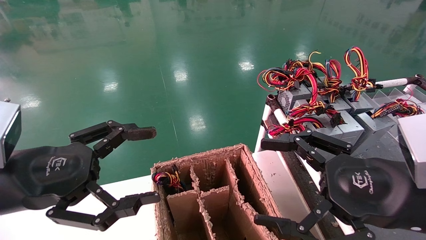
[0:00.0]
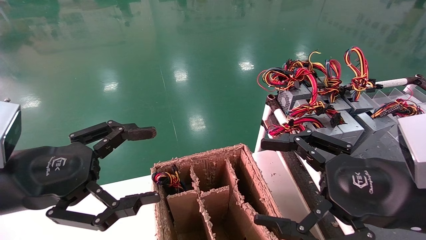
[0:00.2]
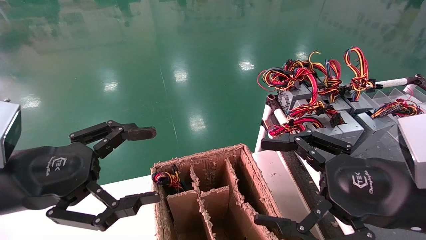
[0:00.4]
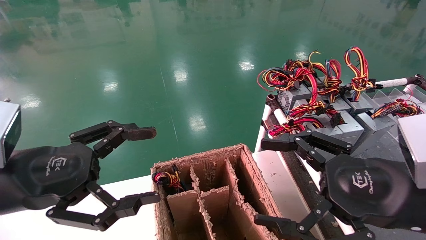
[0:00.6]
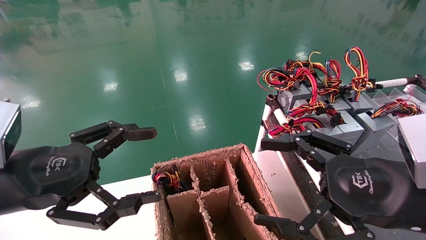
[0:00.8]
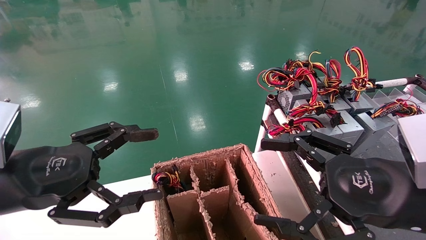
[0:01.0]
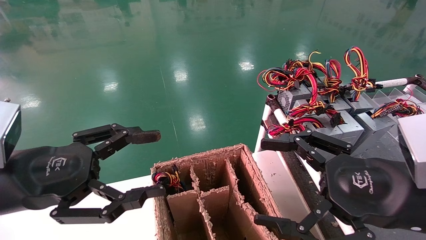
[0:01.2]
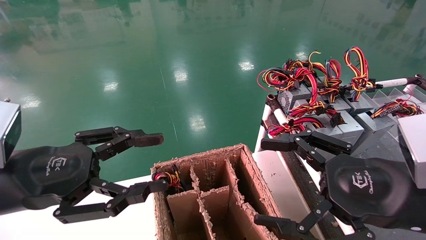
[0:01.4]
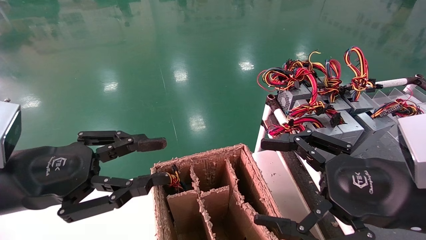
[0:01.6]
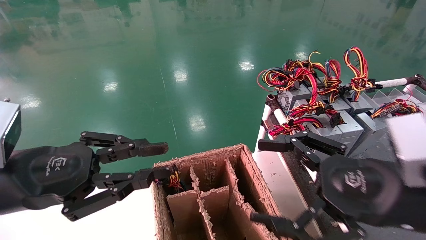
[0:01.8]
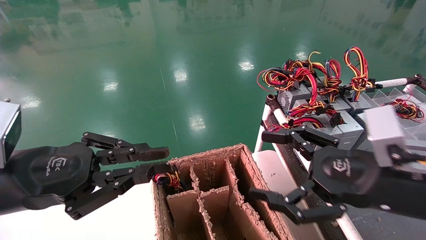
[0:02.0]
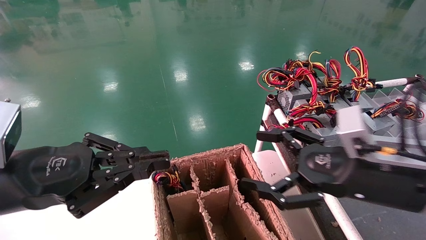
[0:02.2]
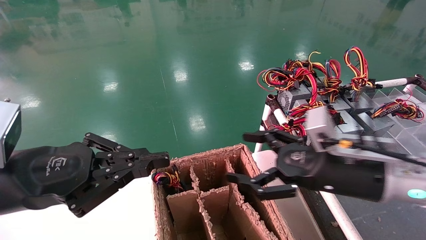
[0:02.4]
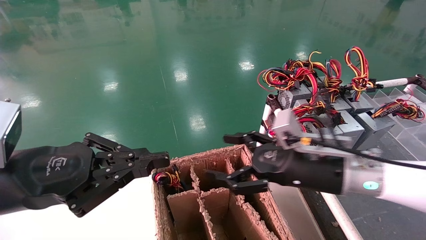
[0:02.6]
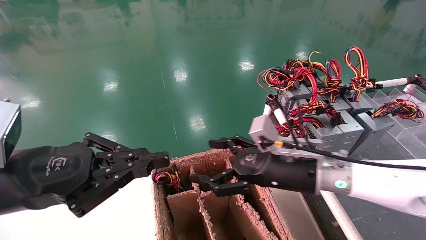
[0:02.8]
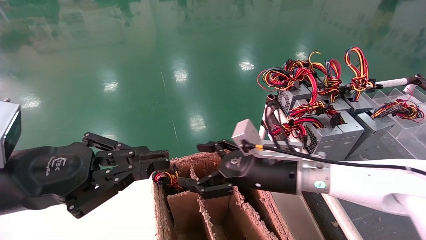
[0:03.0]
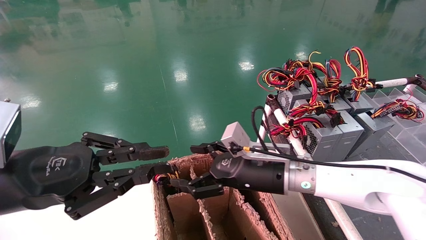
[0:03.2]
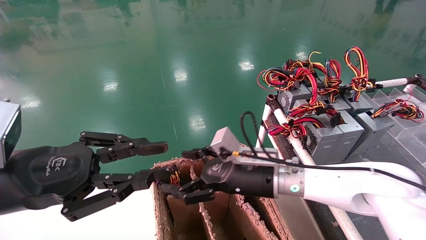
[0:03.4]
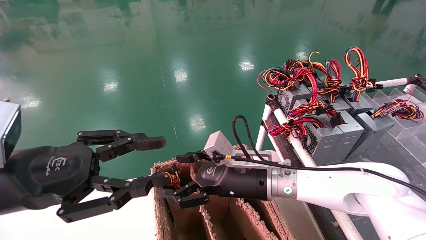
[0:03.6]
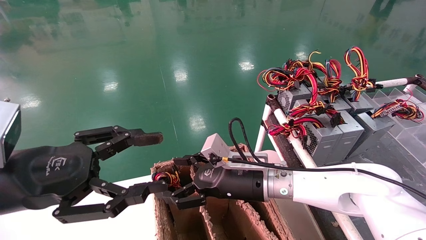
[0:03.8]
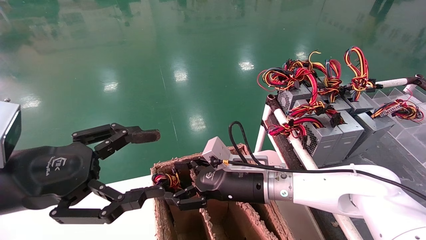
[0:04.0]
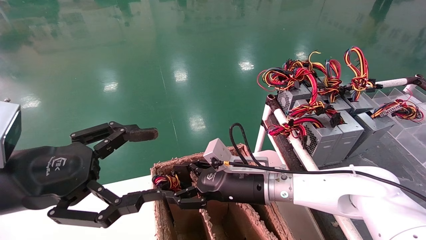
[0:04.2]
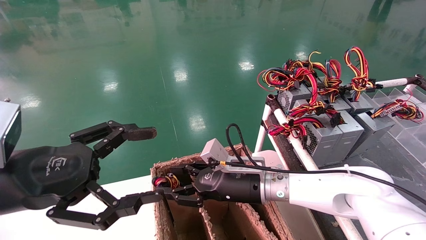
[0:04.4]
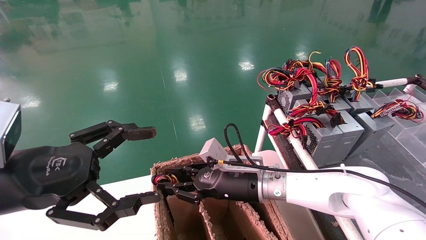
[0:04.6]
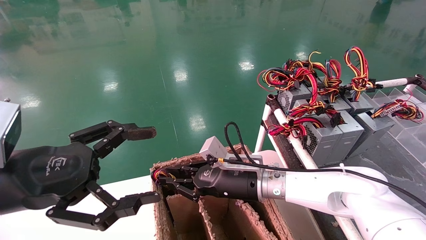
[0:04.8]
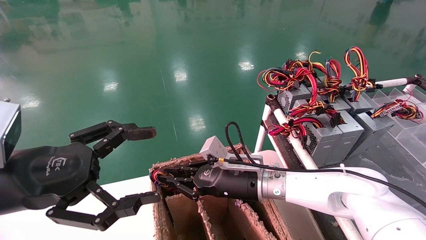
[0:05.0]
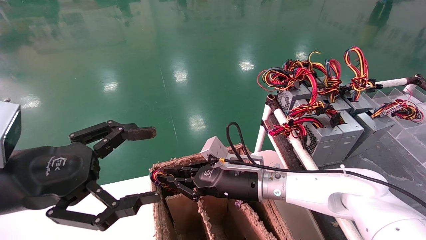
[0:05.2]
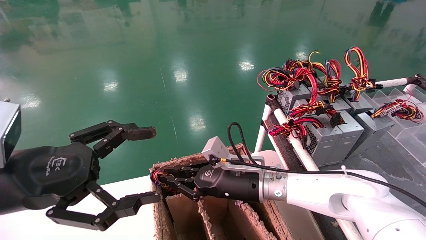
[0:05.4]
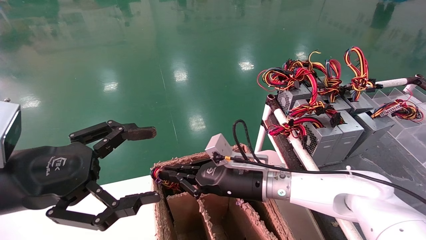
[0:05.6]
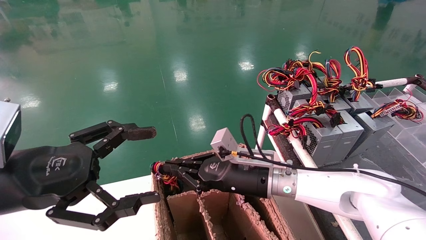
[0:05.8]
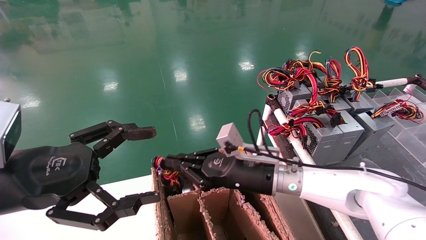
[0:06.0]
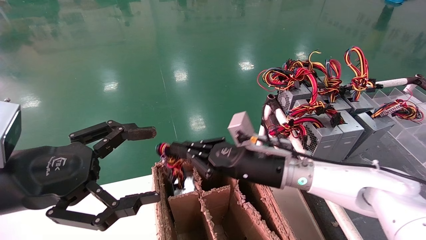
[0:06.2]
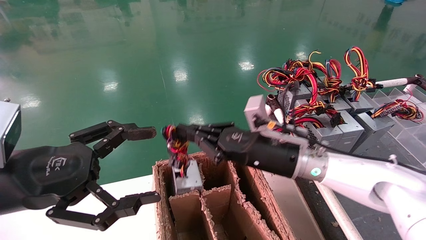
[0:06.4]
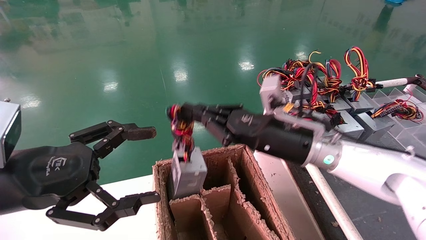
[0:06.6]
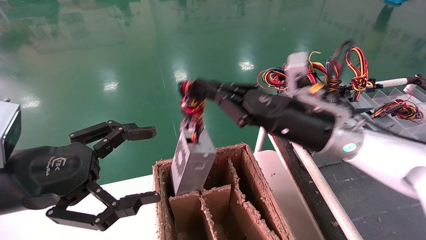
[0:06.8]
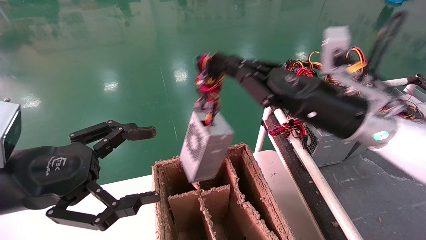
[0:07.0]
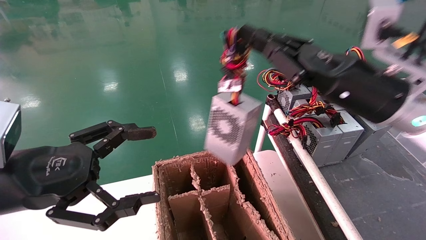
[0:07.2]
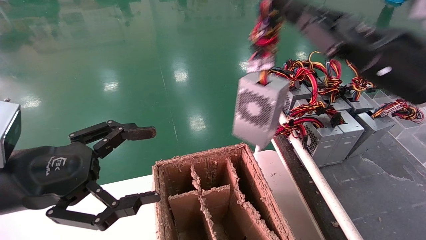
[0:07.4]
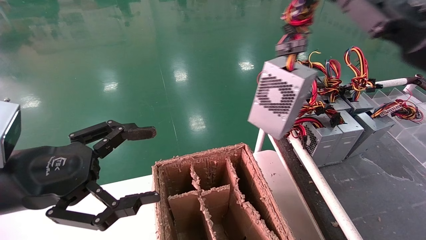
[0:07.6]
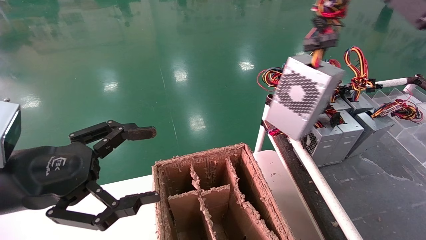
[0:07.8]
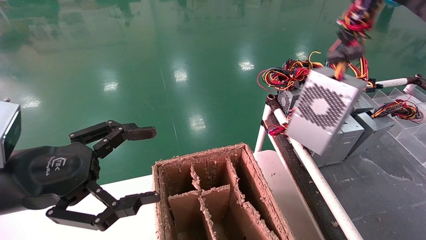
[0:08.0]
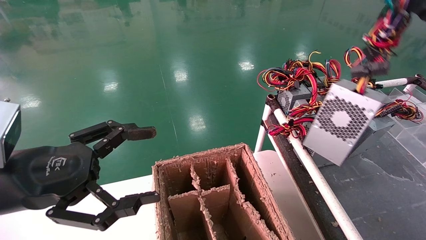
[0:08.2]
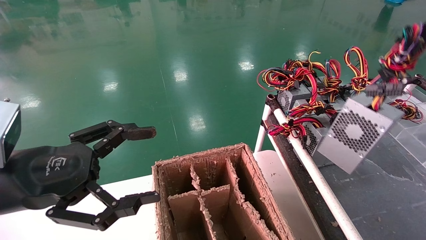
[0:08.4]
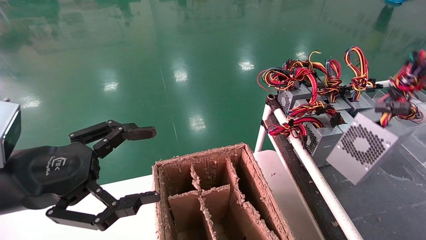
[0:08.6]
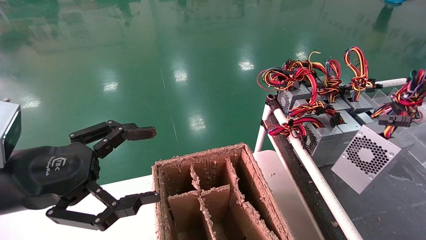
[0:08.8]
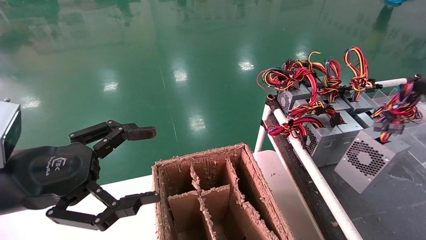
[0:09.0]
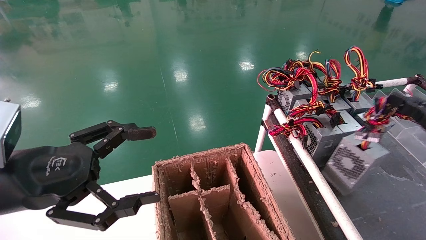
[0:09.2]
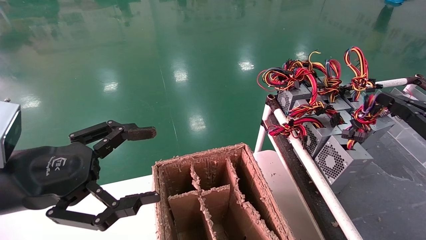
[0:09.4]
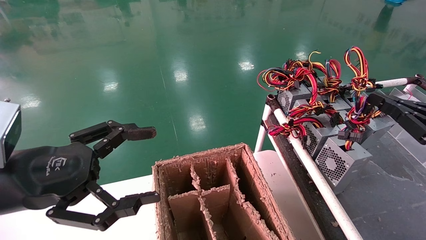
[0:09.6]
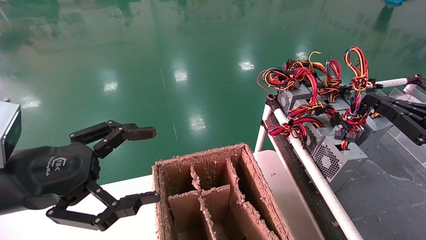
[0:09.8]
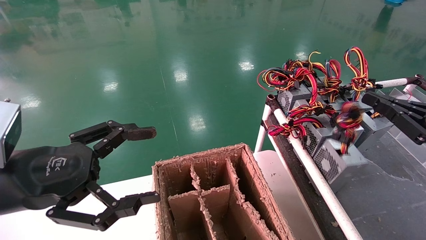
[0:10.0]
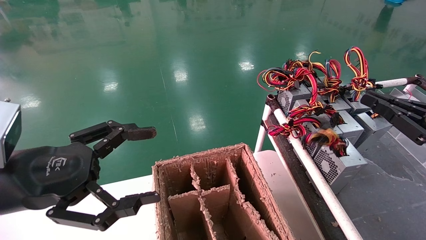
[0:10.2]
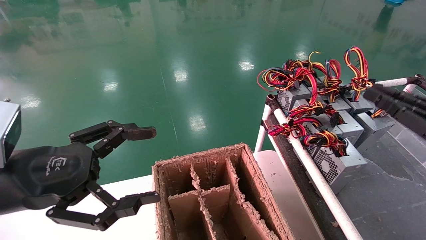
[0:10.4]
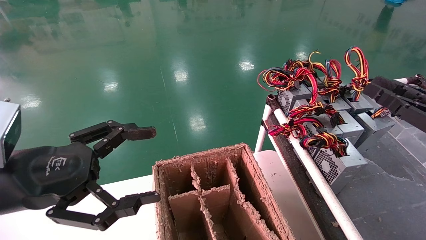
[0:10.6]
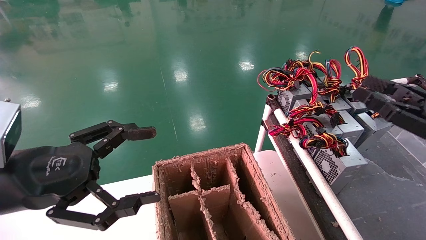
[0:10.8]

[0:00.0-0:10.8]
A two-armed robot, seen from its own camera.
Step, 0:02.2 to 0:05.2: Grab and lift the power supply from the large box.
Step, 0:05.4 to 0:10.0: Place the power supply on the operating table.
0:00.0 to 0:01.6: The left gripper closes.
0:01.6 to 0:03.0: The left gripper closes; the right gripper moves forward, to the left and downward, approximately 20 cm.
0:03.0 to 0:04.6: The left gripper opens its fingers, while the right gripper moves to the left and downward, about 10 cm, and closes.
0:04.6 to 0:06.2: The right gripper moves upward, some 5 cm, and closes its fingers.
0:06.2 to 0:07.8: The right gripper is displaced to the right, upward and backward by approximately 35 cm.
0:07.8 to 0:09.2: The right gripper moves downward and to the right, approximately 20 cm.
0:09.2 to 0:10.8: The right gripper is displaced to the left by about 5 cm, and opens its fingers.

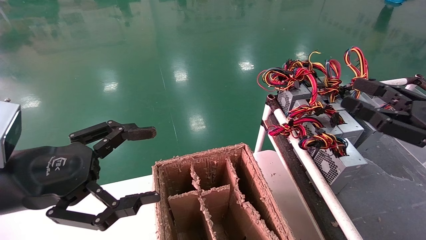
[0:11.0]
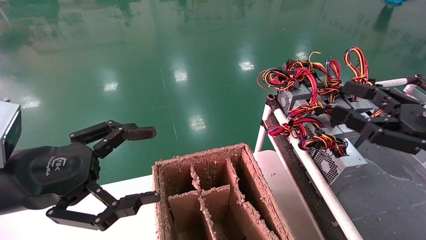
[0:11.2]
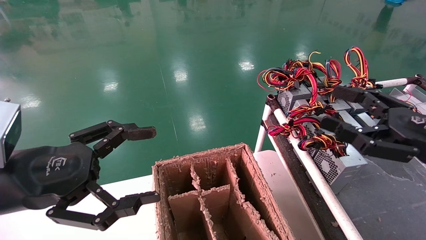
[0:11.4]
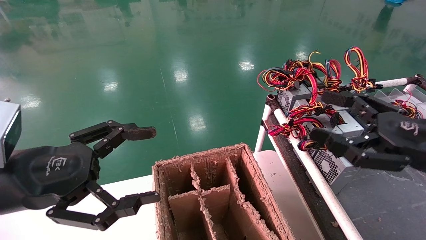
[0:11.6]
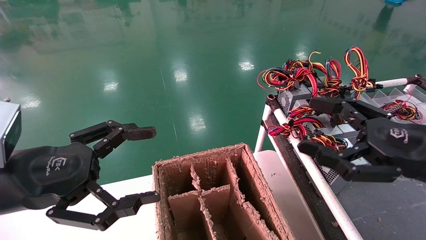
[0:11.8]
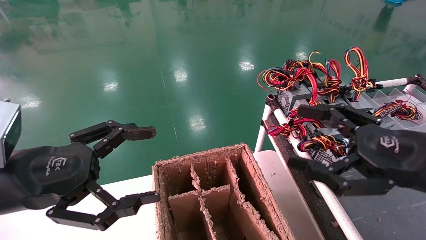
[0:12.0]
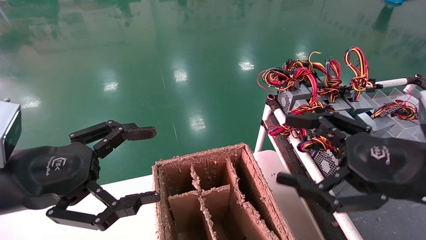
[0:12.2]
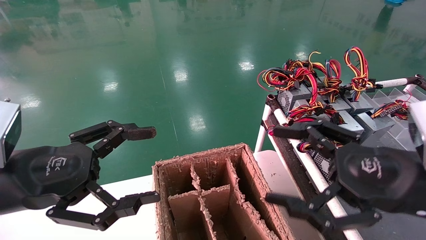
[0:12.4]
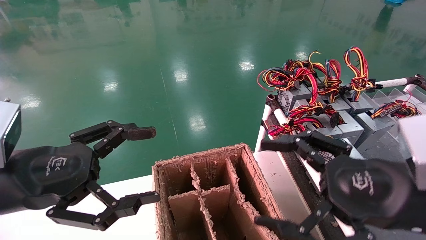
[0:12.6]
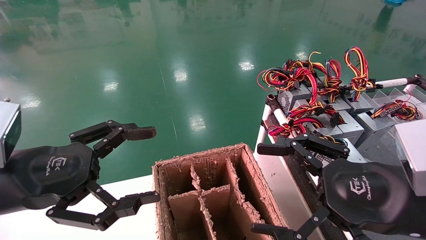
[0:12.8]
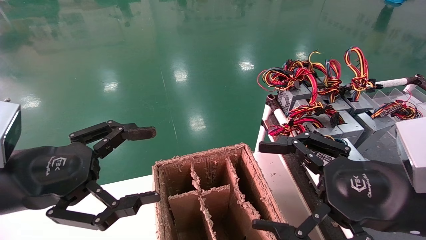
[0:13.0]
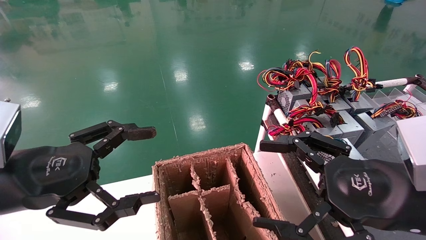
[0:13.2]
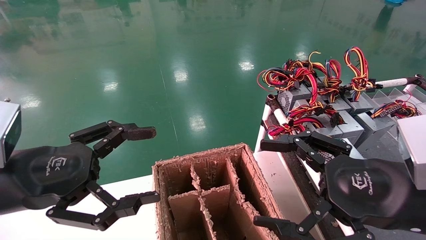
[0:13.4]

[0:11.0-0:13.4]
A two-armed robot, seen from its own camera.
0:11.0 to 0:12.2: The right gripper moves to the left, roughly 10 cm, and opens.
0:12.2 to 0:13.4: The grippers move only a little.
